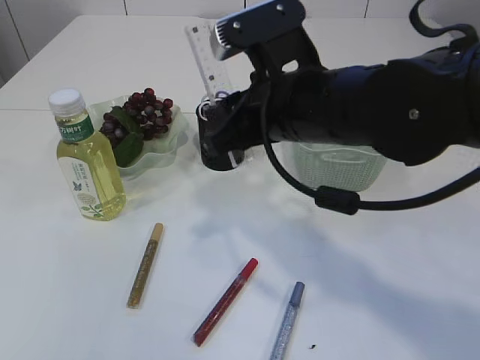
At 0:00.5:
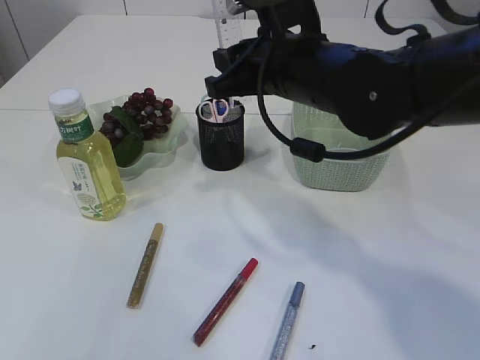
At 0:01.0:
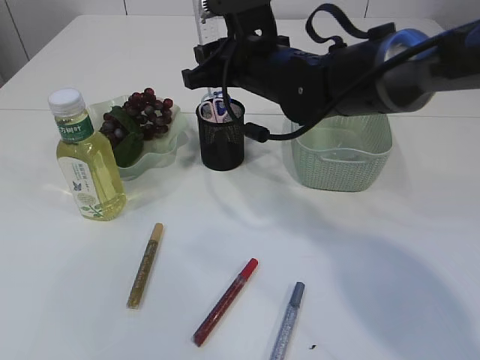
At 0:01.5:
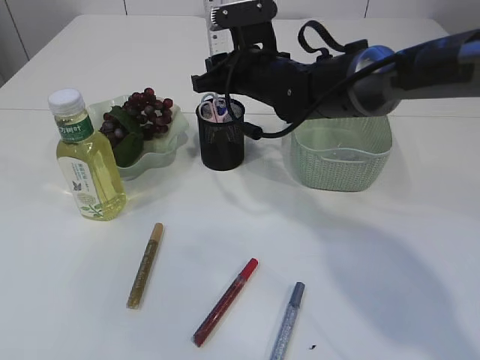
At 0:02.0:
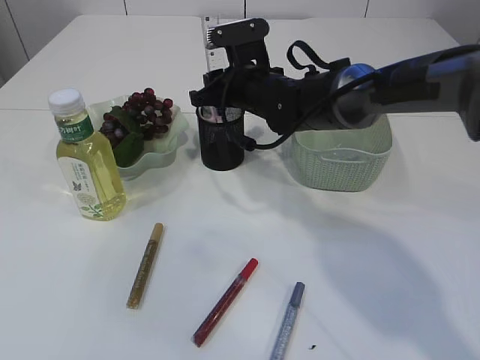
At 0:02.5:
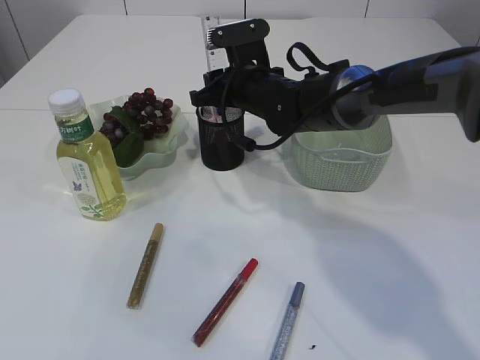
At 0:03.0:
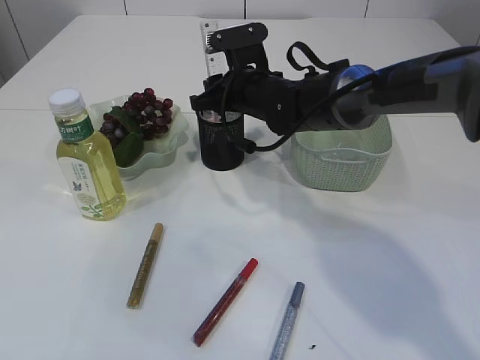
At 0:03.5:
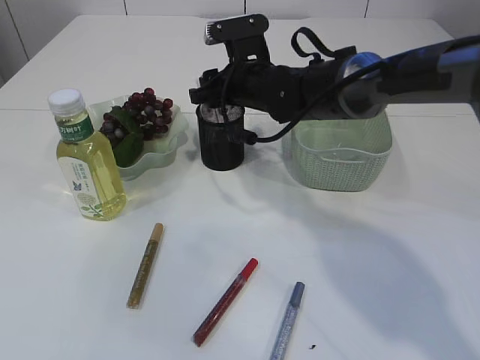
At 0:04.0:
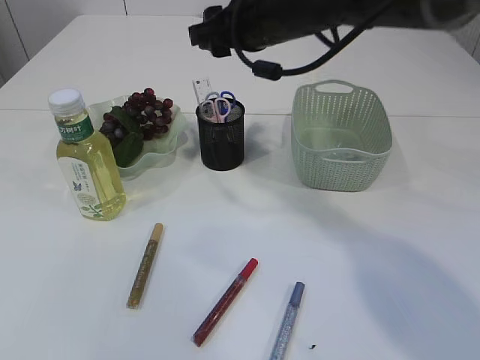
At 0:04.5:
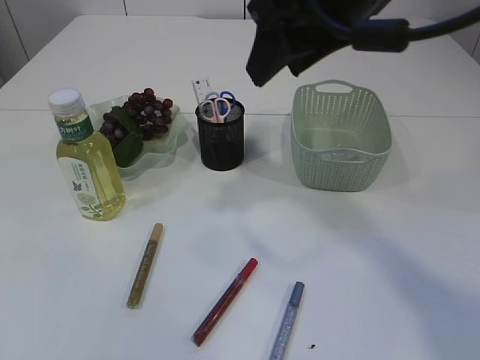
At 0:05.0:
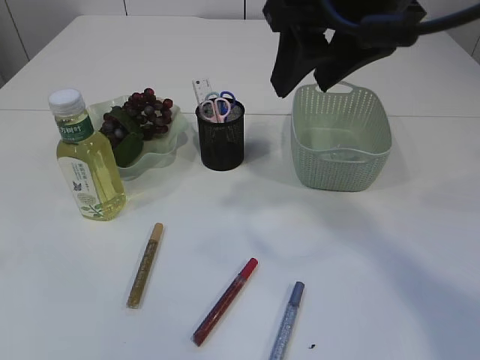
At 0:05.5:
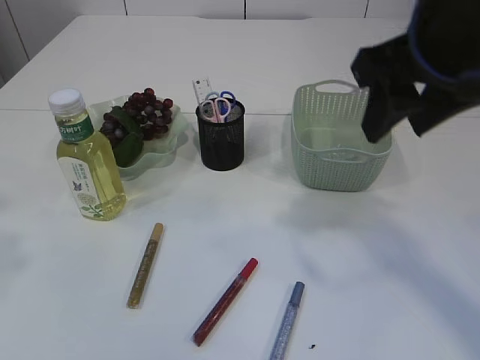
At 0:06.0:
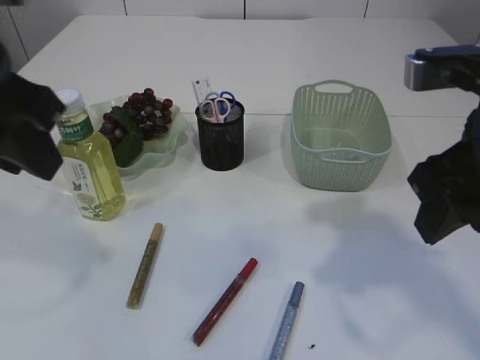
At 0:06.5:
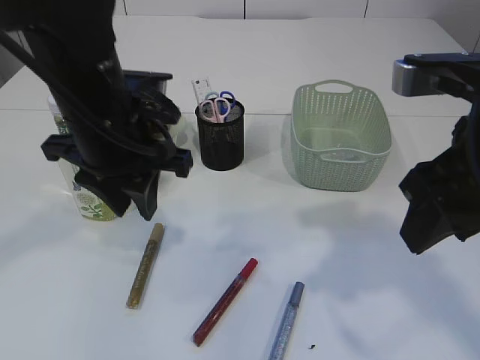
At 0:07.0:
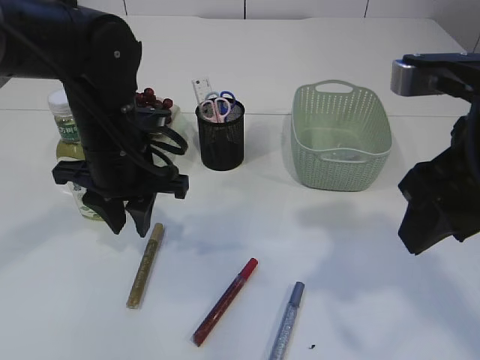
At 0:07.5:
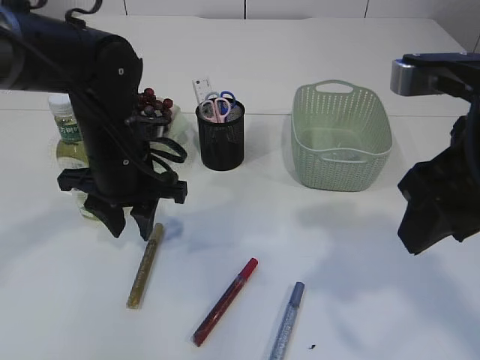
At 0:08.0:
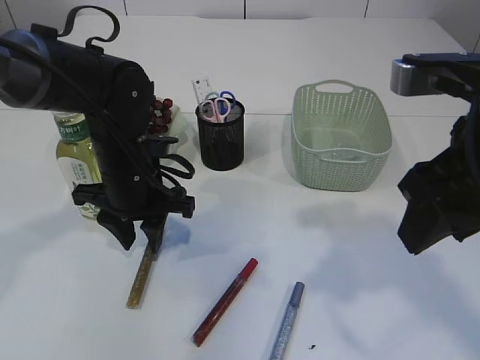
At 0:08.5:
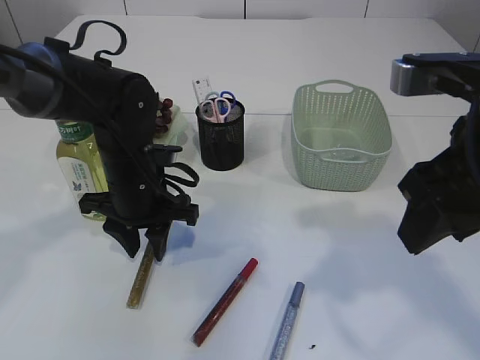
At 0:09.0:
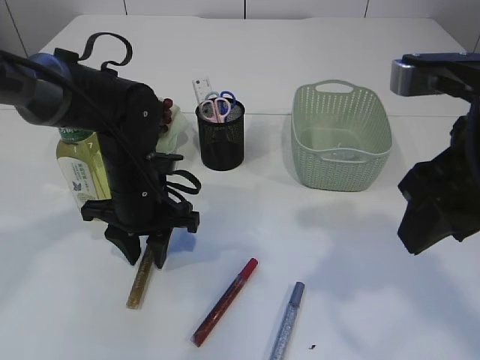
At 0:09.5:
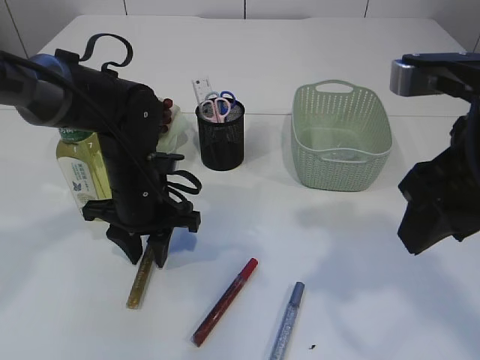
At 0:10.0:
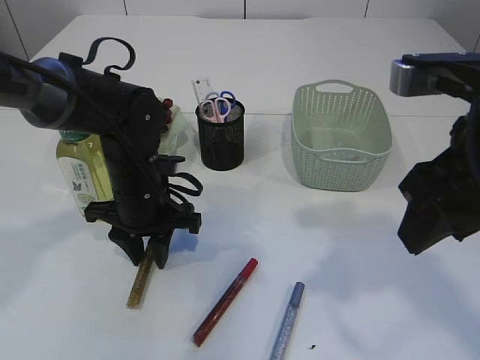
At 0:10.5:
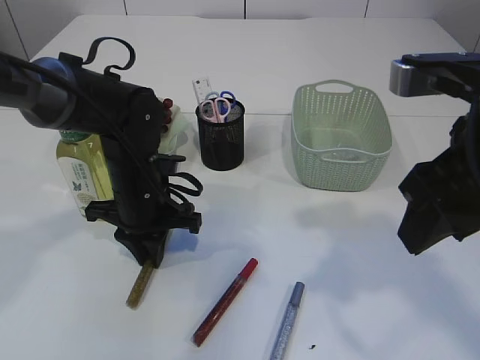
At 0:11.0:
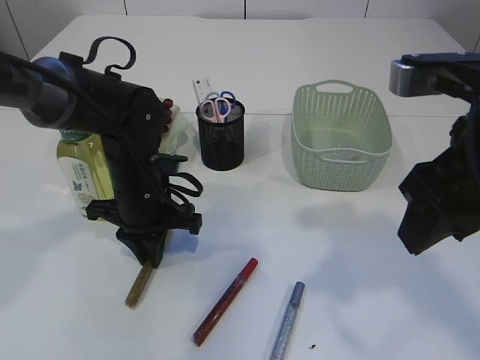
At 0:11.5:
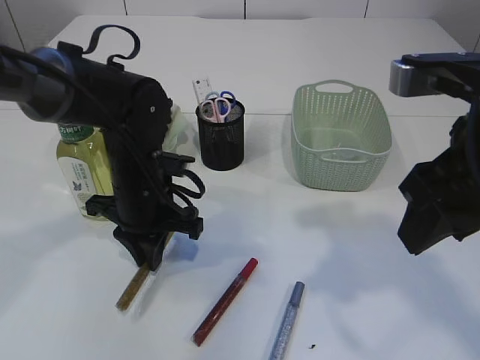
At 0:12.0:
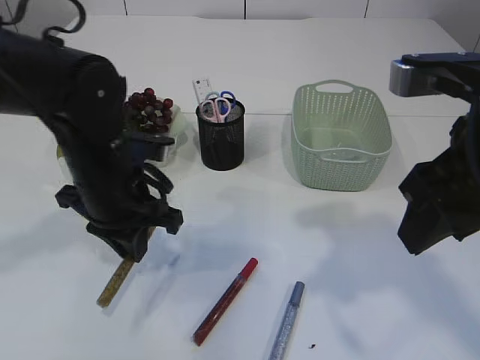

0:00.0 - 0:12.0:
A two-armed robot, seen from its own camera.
Step, 0:00.0 - 0:03.5: Place the ruler into the pen holder.
Step, 0:04.0 - 0:12.0: pick up the yellow glue.
0:00.0 - 0:02.0: The right gripper moves forward and downward, about 20 cm.
0:02.0 - 0:04.0: The right gripper travels upward and backward by about 10 cm.
0:04.0 - 0:06.0: The left gripper shifts some 15 cm to the right, downward and forward, while the right gripper travels backward and to the right by some 25 cm.
0:06.0 - 0:08.0: The left gripper is displaced downward and forward by approximately 25 cm.
0:08.0 - 0:10.0: The grippers stay close to where they were, moving slightly.
0:10.0 - 0:12.0: The left gripper travels upward by some 5 cm, and closes its fingers.

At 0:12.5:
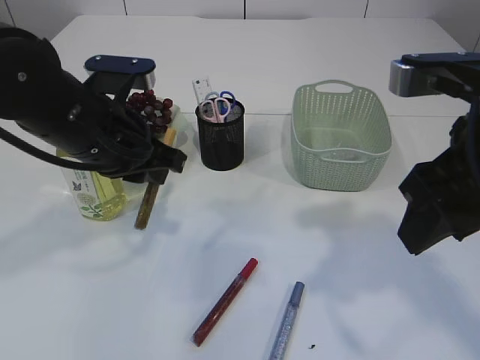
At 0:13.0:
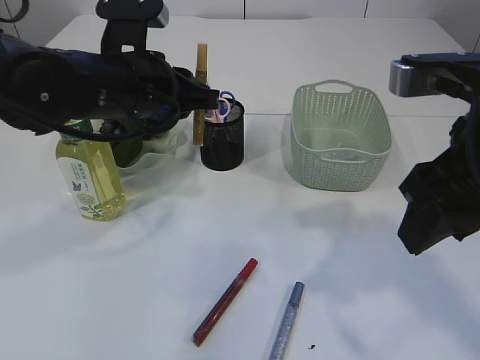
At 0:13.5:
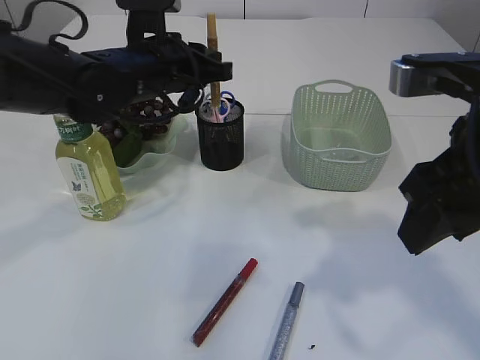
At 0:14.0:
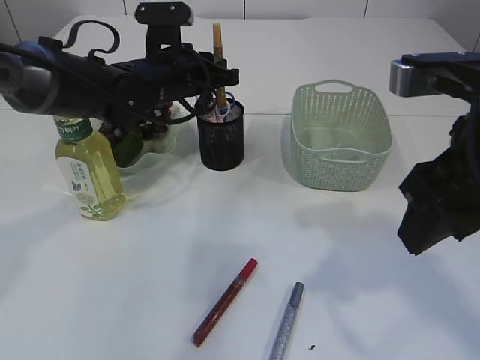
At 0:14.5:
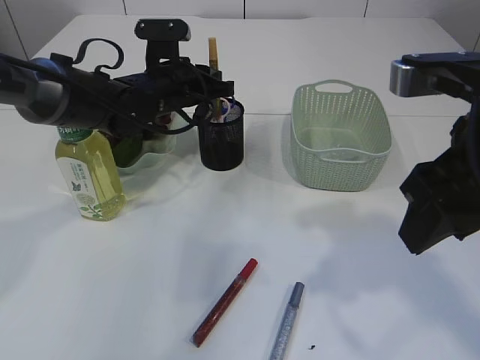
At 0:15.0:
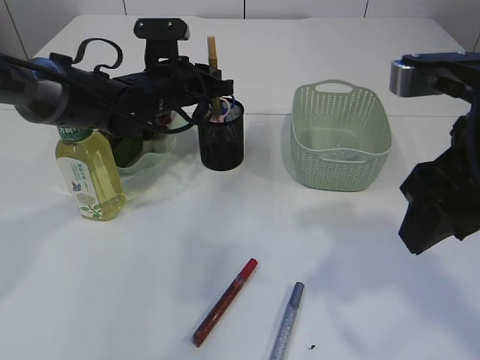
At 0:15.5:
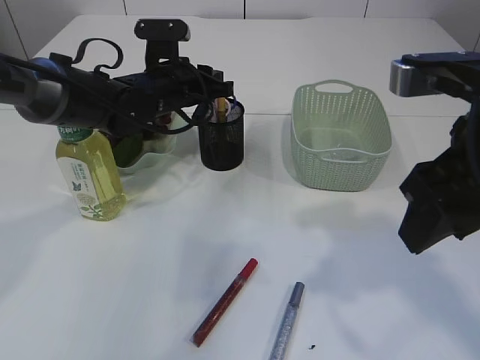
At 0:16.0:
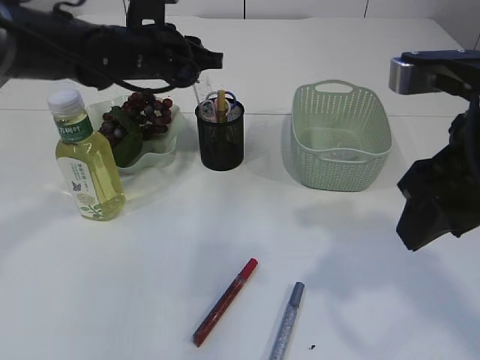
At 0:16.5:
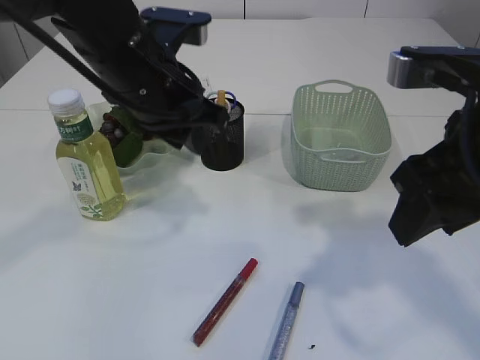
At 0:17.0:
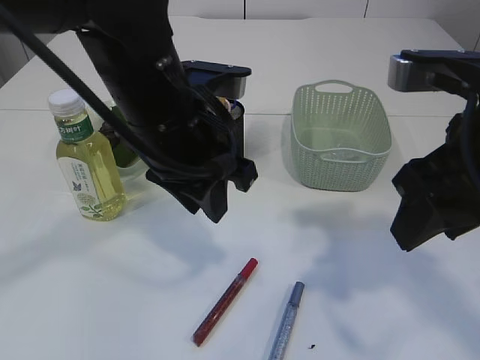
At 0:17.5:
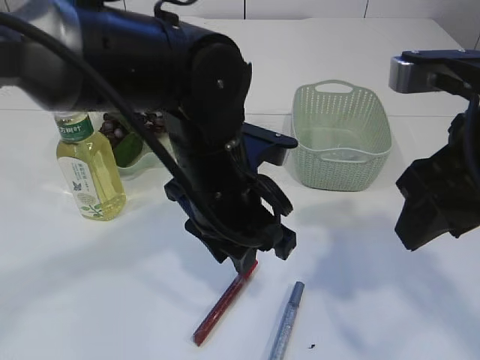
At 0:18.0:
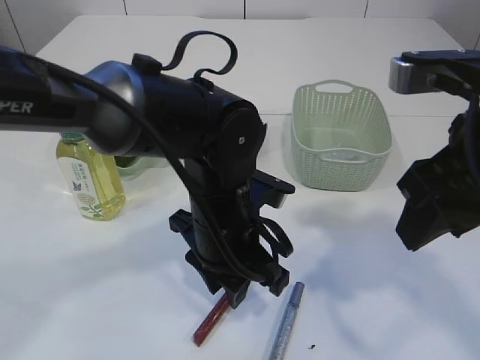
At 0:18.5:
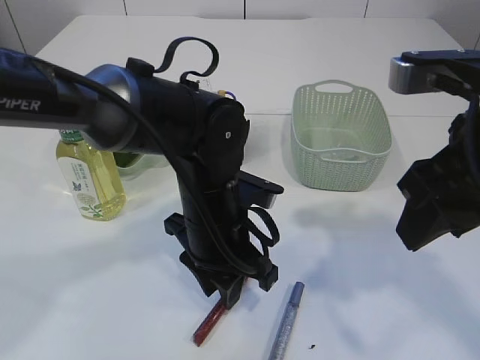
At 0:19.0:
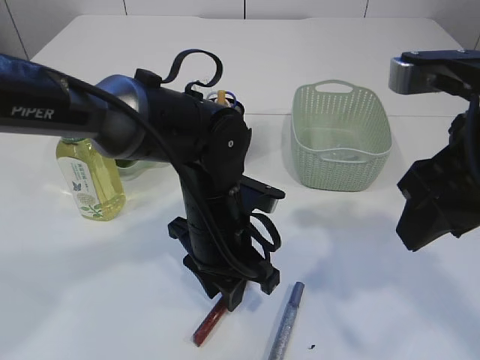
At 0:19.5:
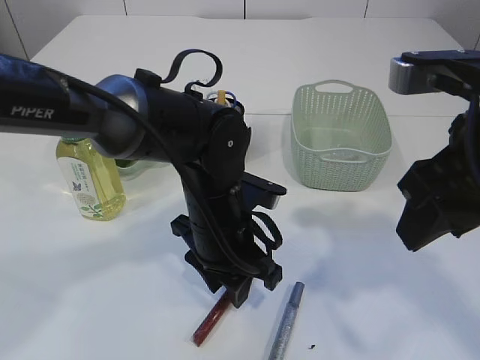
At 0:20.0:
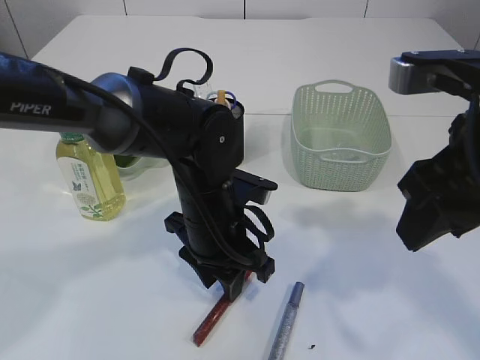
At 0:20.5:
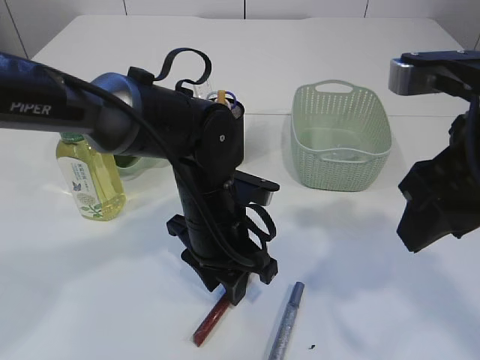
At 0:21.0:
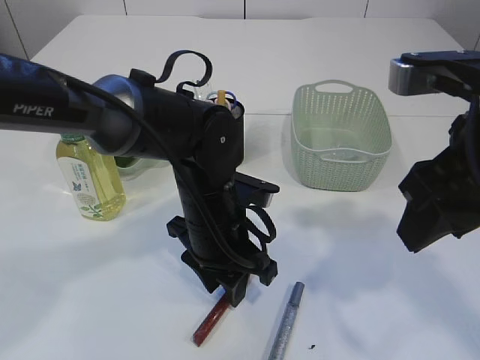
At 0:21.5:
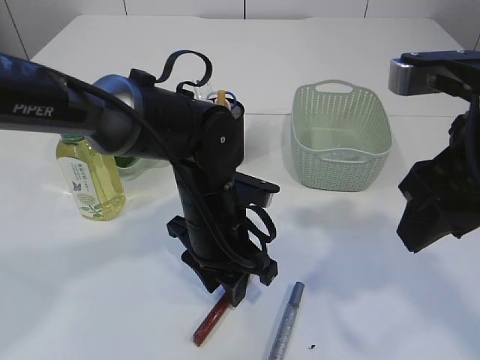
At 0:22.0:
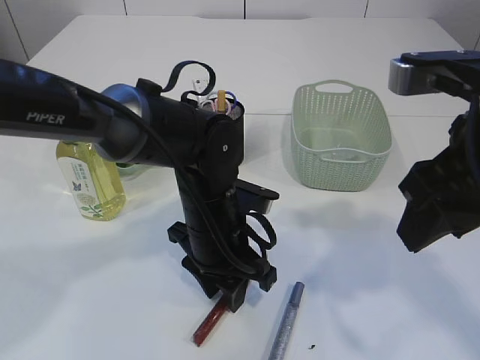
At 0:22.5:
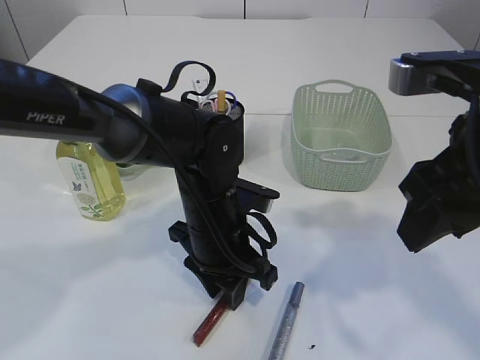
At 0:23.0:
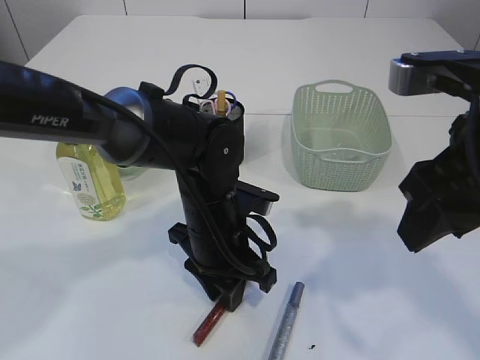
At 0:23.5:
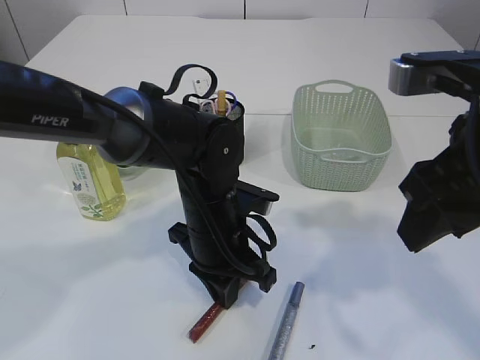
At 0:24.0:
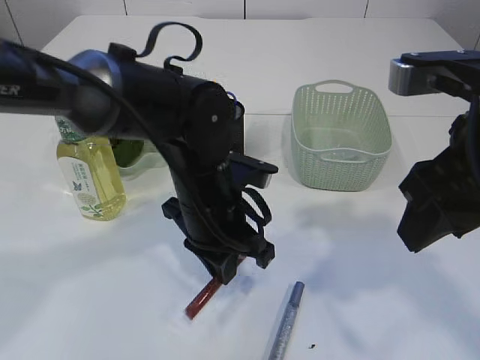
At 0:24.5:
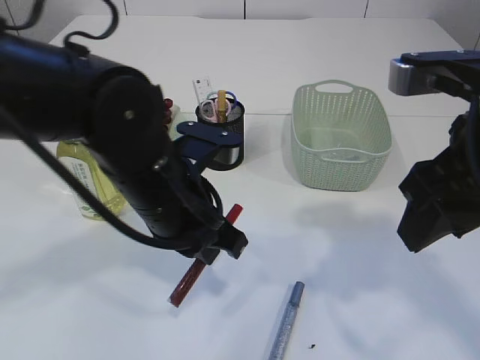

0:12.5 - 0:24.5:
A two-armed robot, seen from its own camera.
Step, 0:12.5 - 0:16.0: place the yellow glue into the pen holder.
Step, 0:16.5 - 0:24.5: pick up the red glue.
0:12.5 - 0:14.5: The left gripper is displaced forward by roughly 15 cm.
0:14.5 - 0:16.5: The left gripper heads backward and upward, covering about 15 cm.
0:16.5 - 0:18.5: The left gripper goes about 15 cm downward, to the right and backward.
0:18.5 - 0:20.5: The grippers move only a little.
0:20.5 - 0:22.5: Both grippers stay put.
0:22.5 - 0:24.5: The left gripper shifts approximately 10 cm upward, and closes.

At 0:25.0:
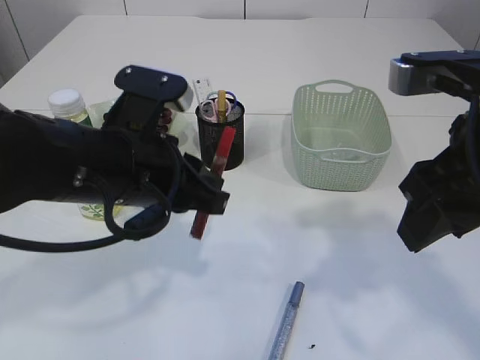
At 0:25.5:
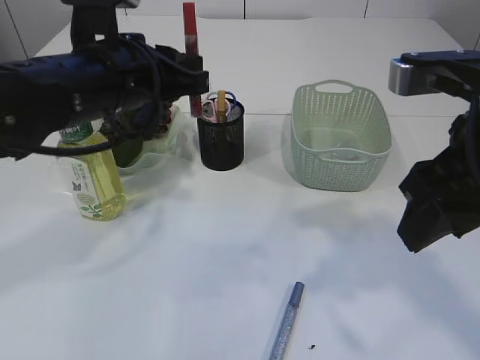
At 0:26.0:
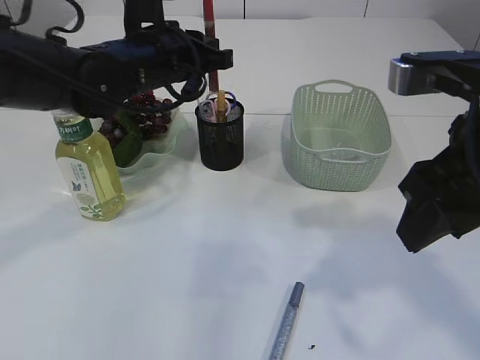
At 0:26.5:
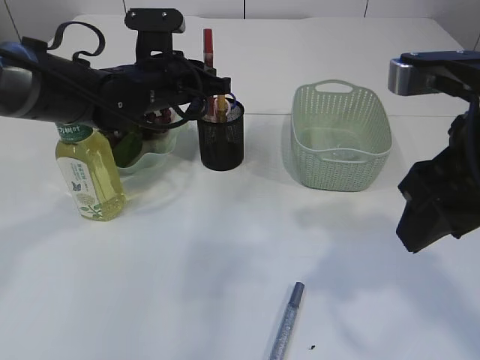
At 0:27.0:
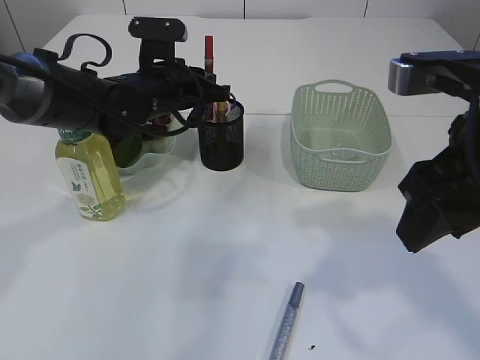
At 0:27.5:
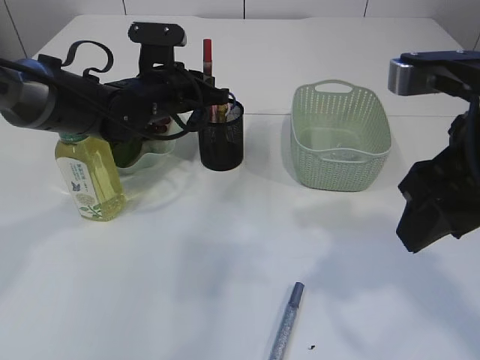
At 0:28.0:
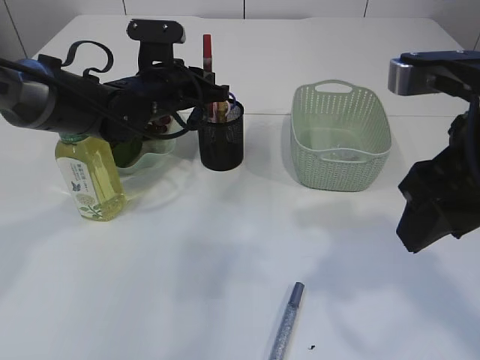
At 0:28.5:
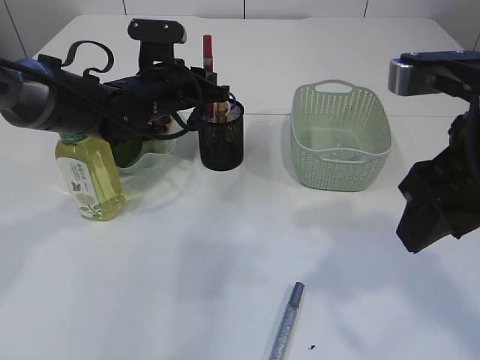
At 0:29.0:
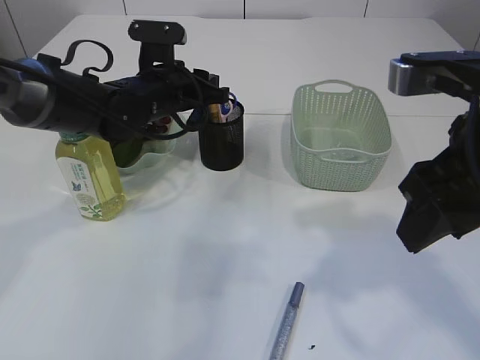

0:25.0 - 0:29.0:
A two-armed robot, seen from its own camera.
0:25.0 - 0:27.0: The left gripper moves forward, roughly 20 cm.
0:27.0 - 0:29.0: Neither gripper changes place.
